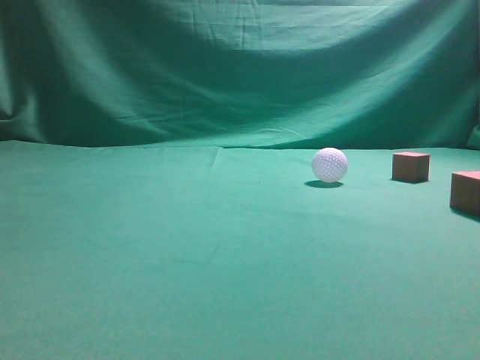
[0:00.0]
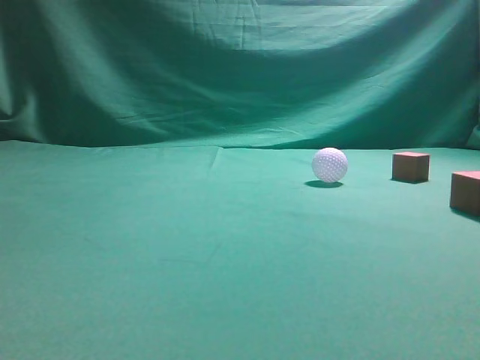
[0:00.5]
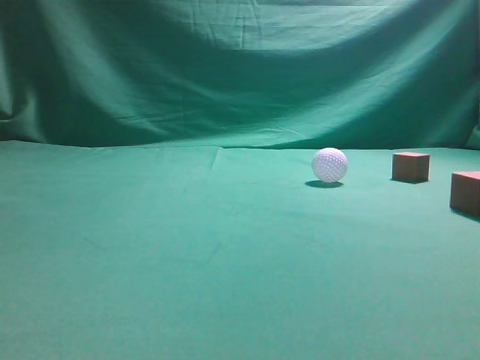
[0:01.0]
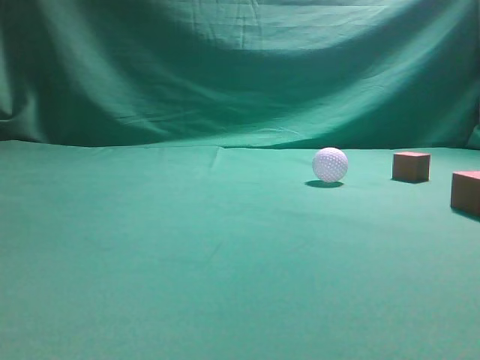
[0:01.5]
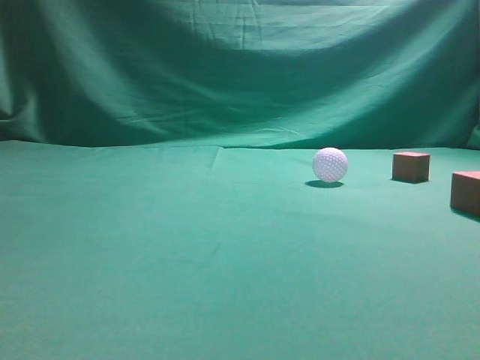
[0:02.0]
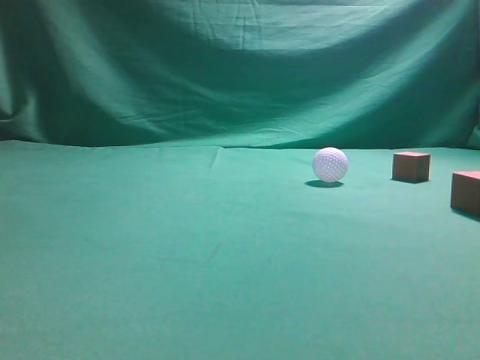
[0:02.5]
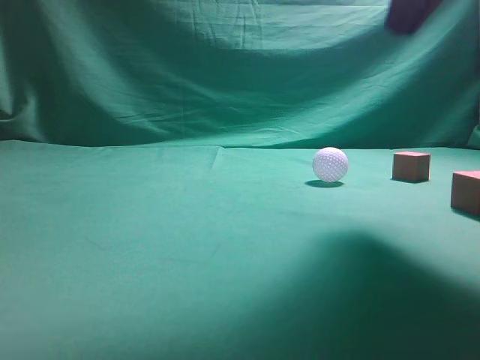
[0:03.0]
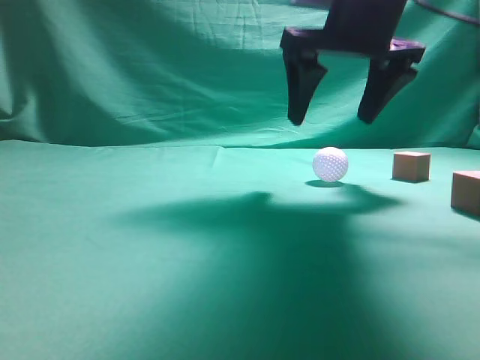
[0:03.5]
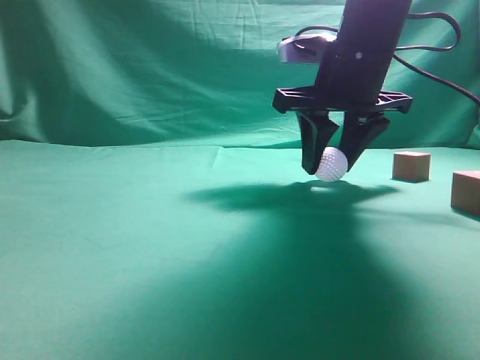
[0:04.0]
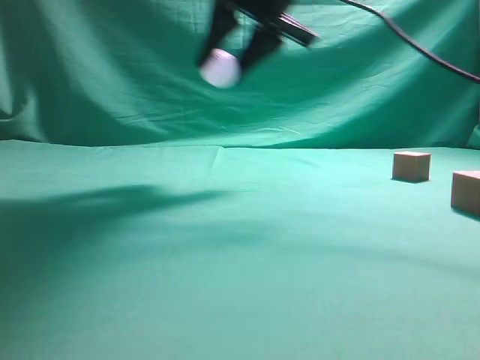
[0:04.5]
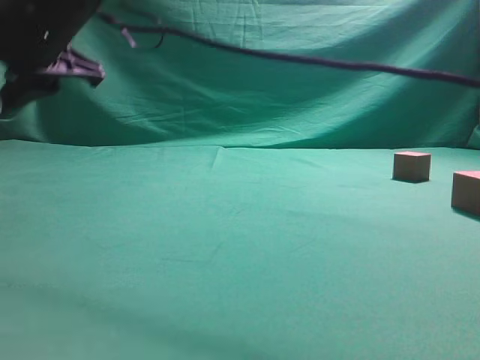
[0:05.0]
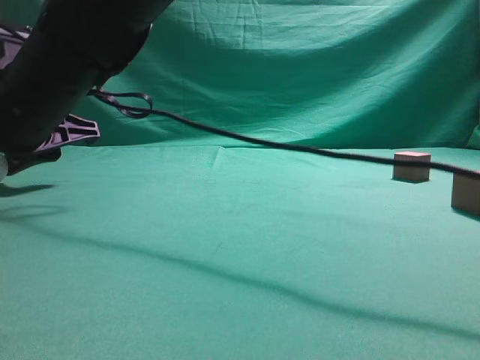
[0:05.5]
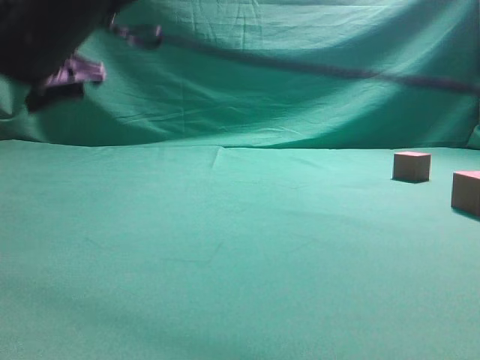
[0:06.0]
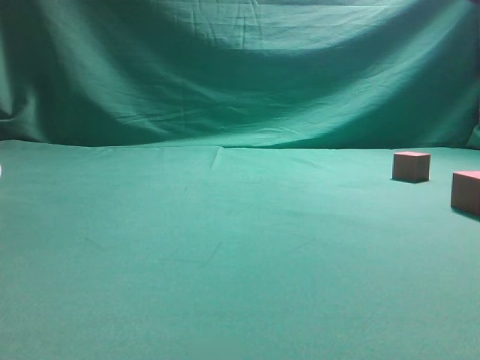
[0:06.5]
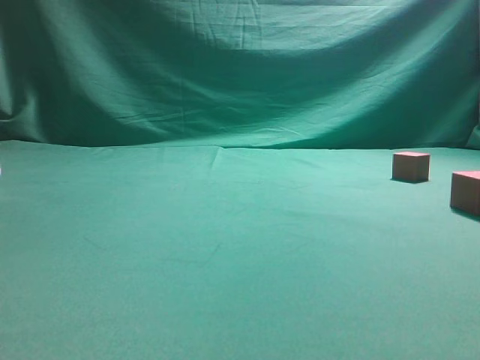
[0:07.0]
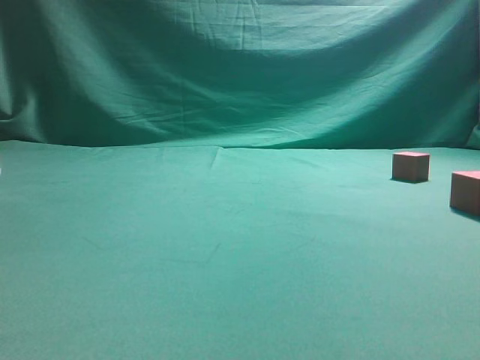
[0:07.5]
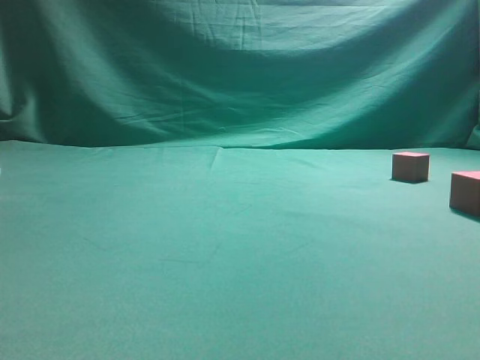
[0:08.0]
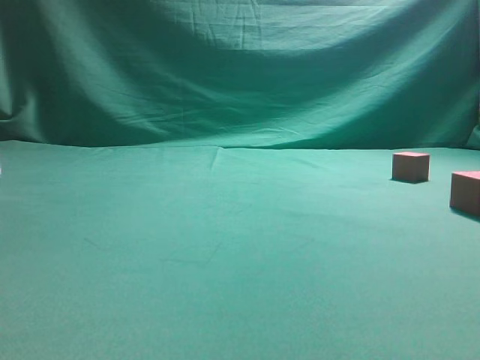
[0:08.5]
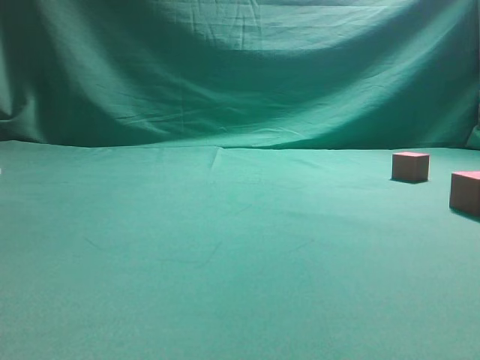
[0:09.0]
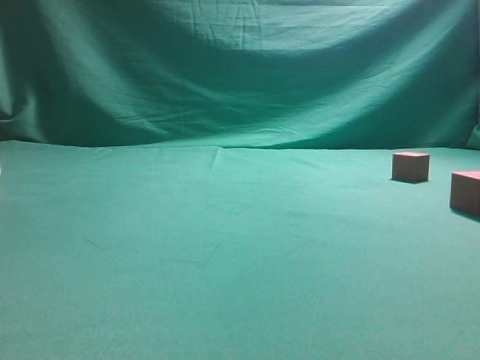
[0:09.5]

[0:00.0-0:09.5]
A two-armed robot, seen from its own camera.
Step, 0:00.0 to 0:03.5: Grasp the spherical object on the right side.
0:02.0 to 0:04.0: The right gripper is displaced forward and to the left by approximately 35 cm, and opens up.
0:04.0 to 0:05.5: The right gripper travels to the left by some 30 cm.
0:05.5 to 0:07.5: The right gripper heads to the right, upward and backward, covering some 50 cm, and closes its fingers.
